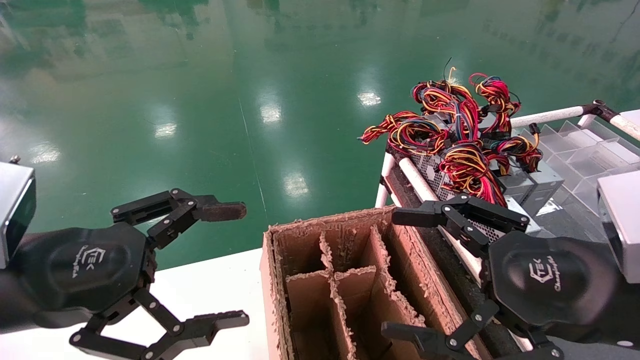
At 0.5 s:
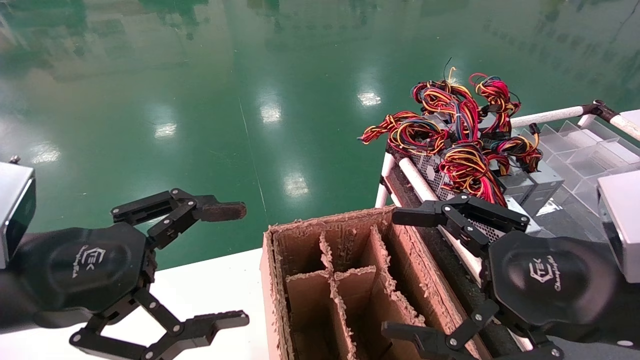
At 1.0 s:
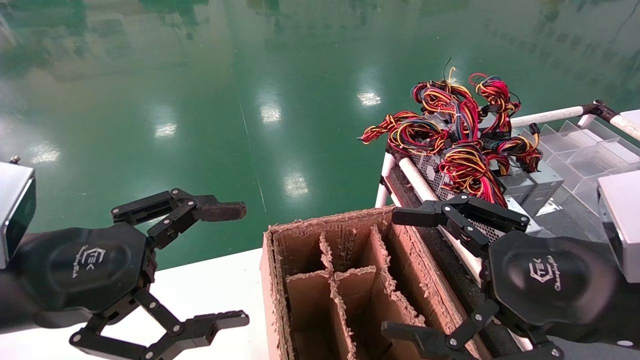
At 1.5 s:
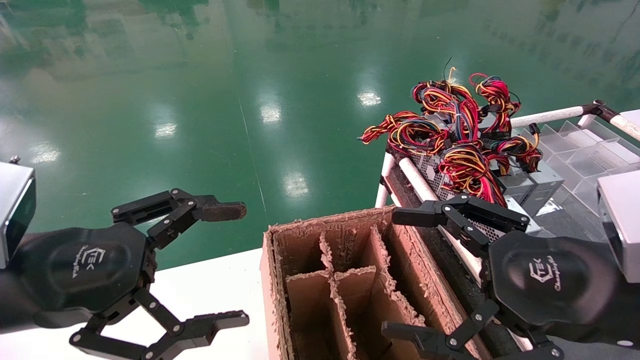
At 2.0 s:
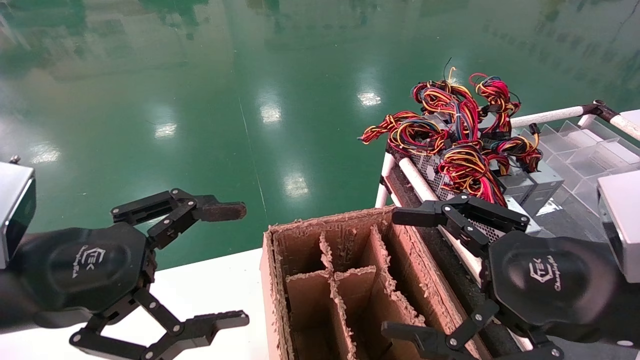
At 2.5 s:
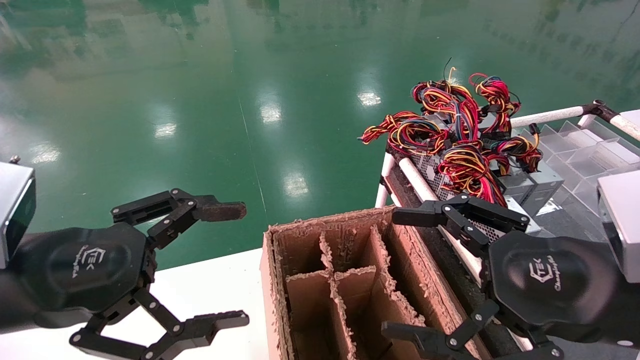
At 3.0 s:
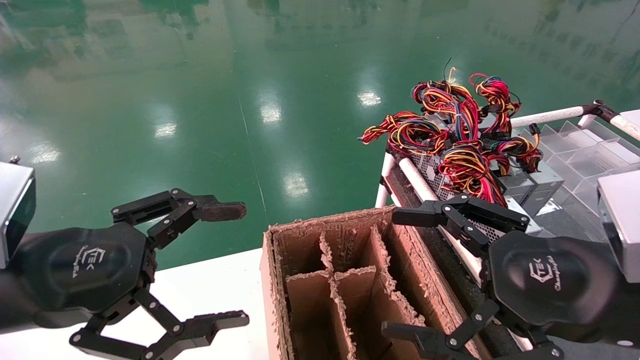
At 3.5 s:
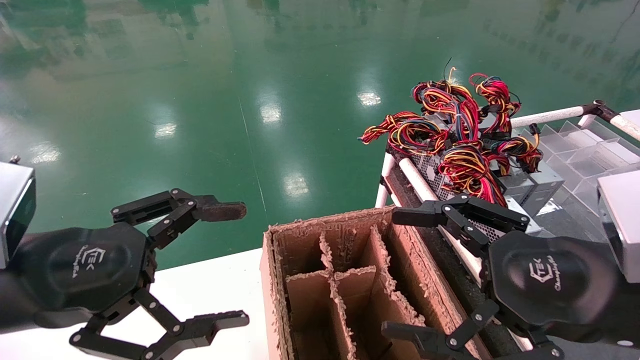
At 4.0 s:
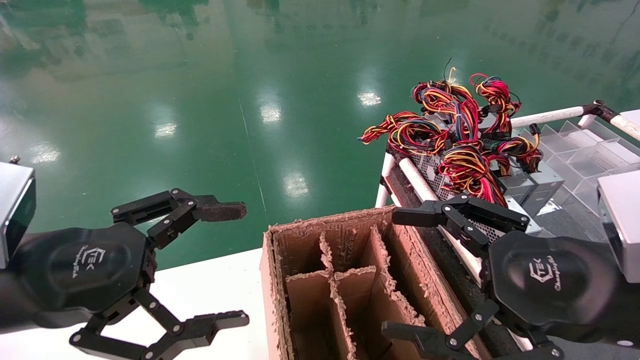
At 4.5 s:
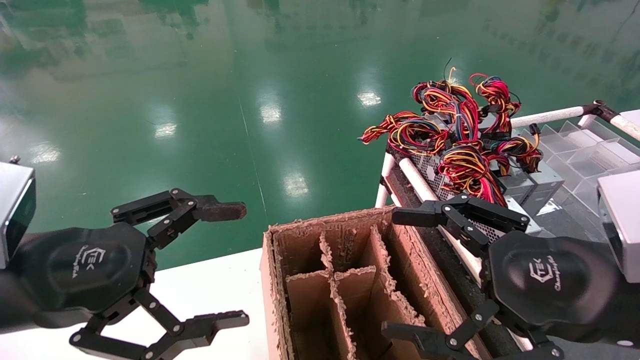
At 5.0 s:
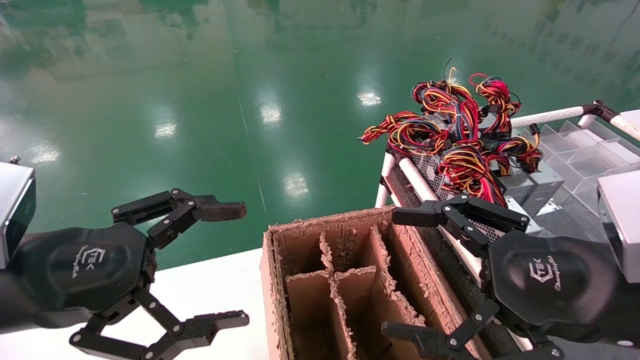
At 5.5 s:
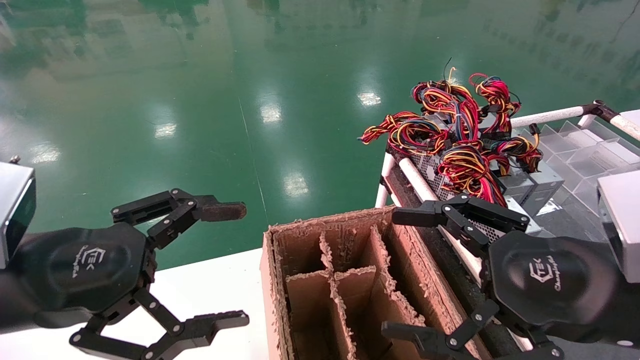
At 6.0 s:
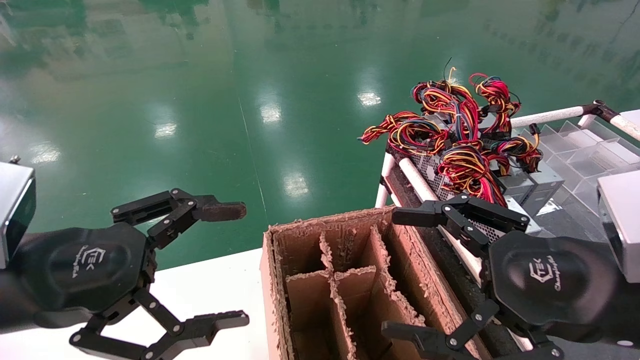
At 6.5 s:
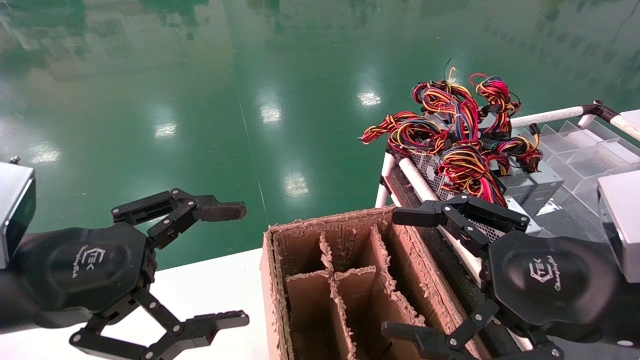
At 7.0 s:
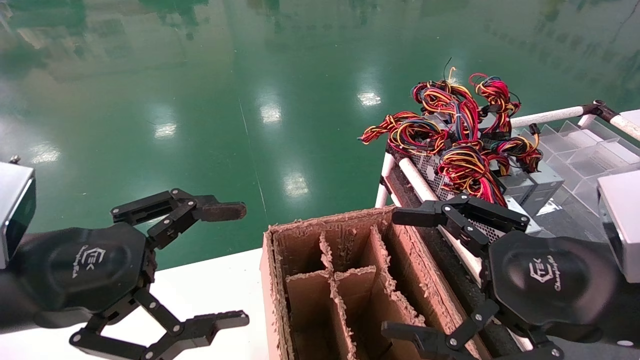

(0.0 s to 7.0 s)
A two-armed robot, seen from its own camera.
0.0 s - 7.0 s: Both grippers stay about where they are.
